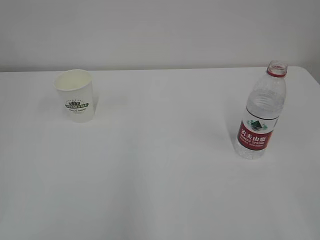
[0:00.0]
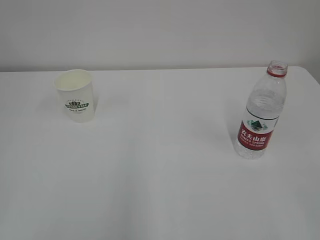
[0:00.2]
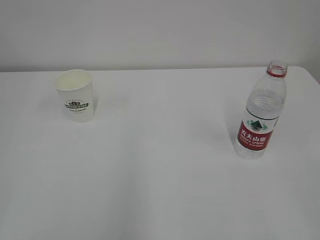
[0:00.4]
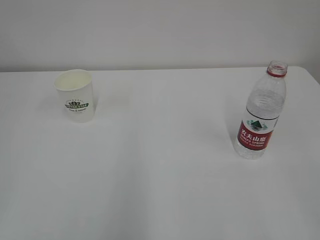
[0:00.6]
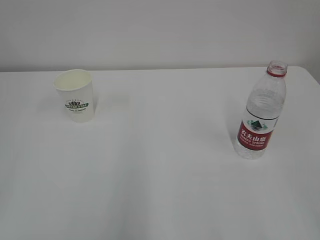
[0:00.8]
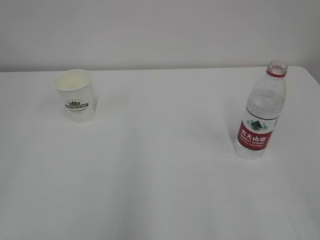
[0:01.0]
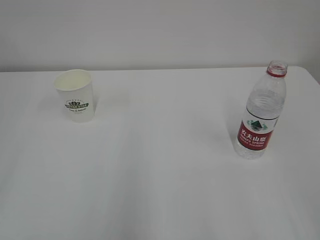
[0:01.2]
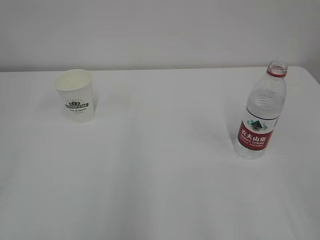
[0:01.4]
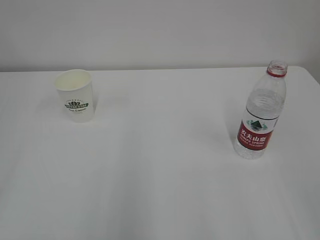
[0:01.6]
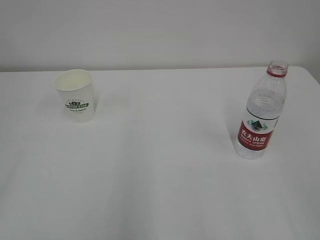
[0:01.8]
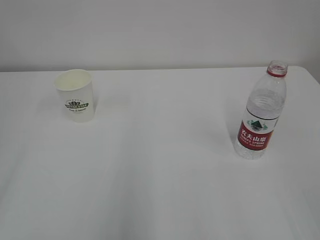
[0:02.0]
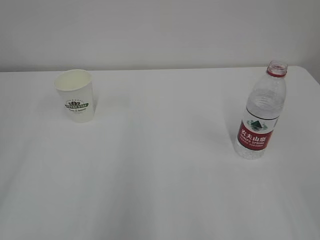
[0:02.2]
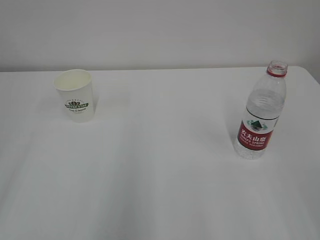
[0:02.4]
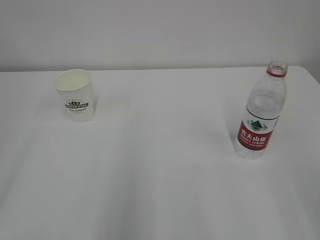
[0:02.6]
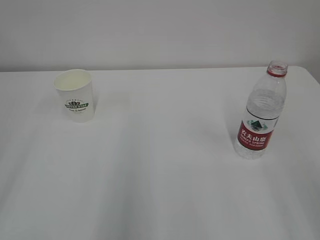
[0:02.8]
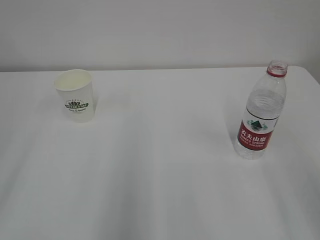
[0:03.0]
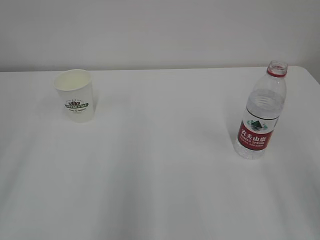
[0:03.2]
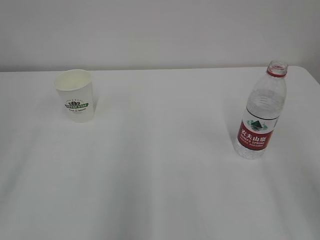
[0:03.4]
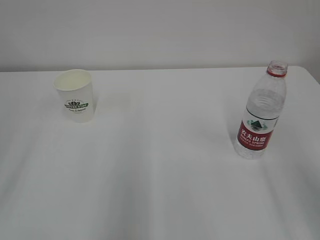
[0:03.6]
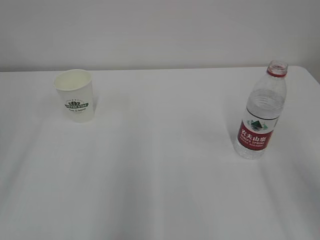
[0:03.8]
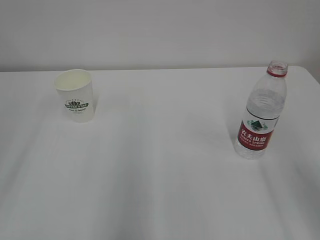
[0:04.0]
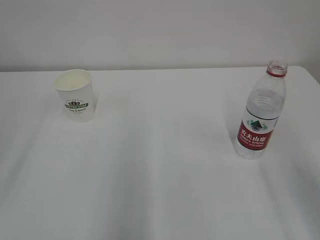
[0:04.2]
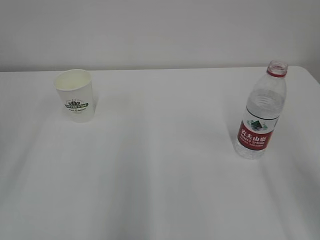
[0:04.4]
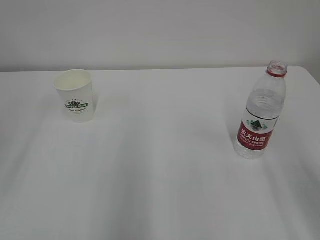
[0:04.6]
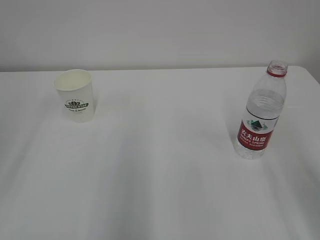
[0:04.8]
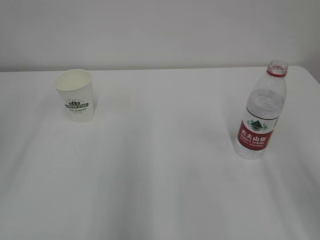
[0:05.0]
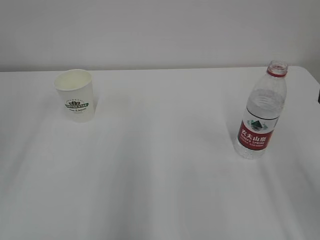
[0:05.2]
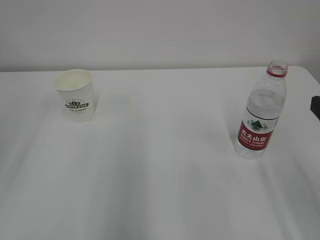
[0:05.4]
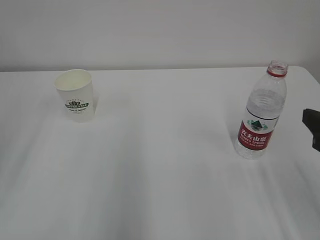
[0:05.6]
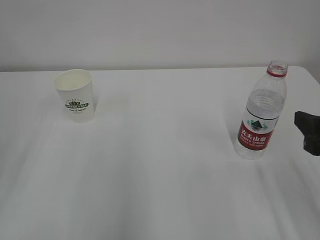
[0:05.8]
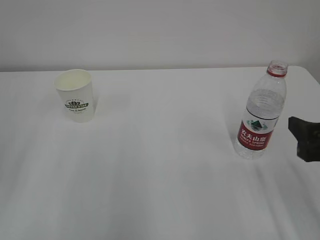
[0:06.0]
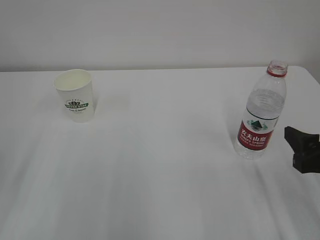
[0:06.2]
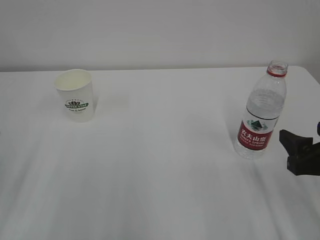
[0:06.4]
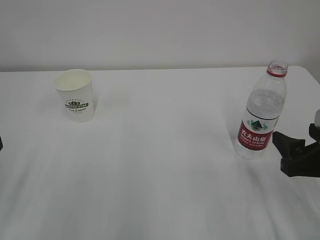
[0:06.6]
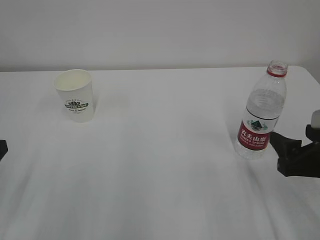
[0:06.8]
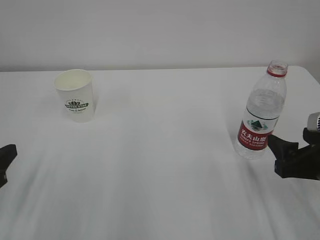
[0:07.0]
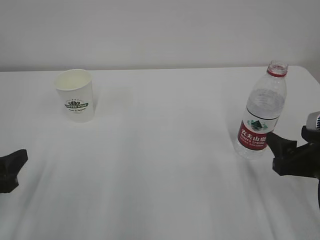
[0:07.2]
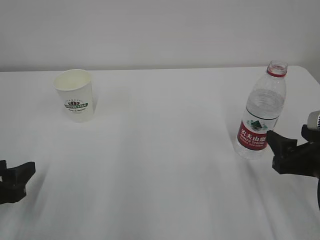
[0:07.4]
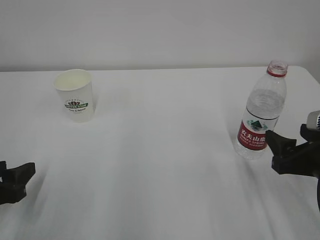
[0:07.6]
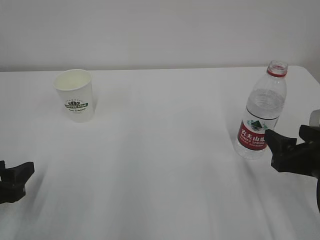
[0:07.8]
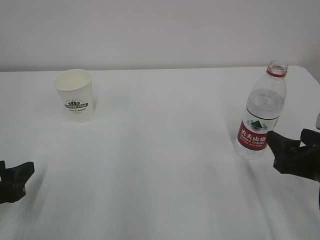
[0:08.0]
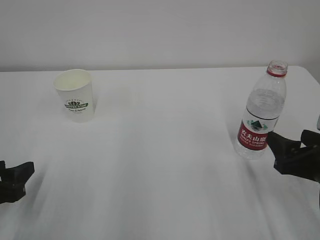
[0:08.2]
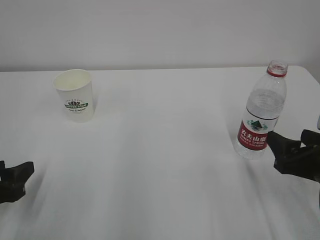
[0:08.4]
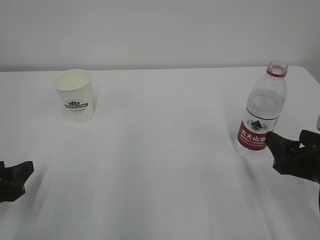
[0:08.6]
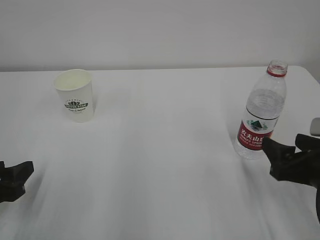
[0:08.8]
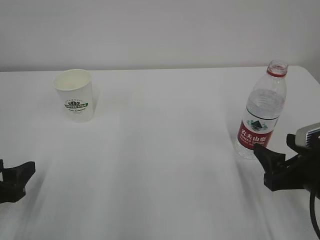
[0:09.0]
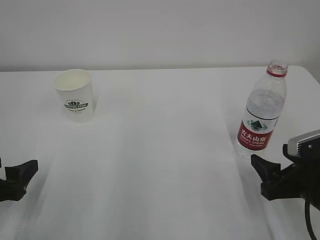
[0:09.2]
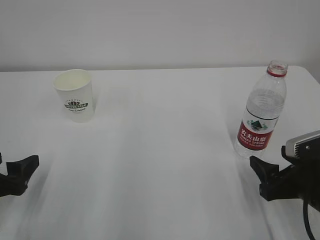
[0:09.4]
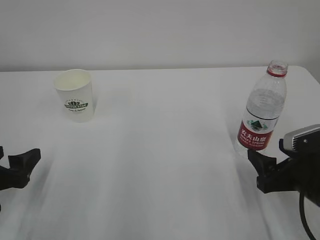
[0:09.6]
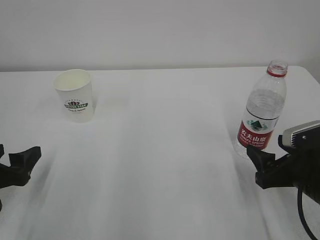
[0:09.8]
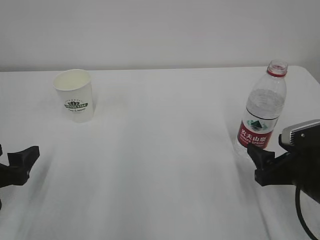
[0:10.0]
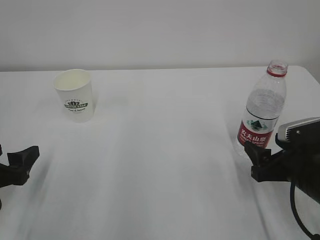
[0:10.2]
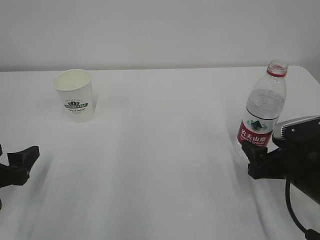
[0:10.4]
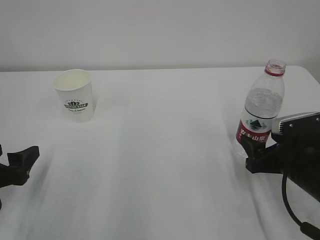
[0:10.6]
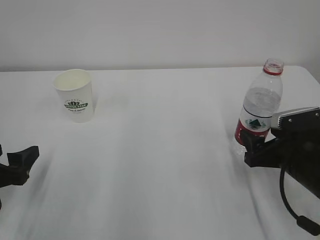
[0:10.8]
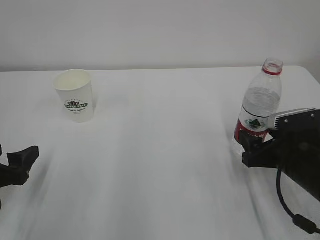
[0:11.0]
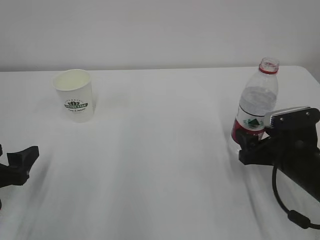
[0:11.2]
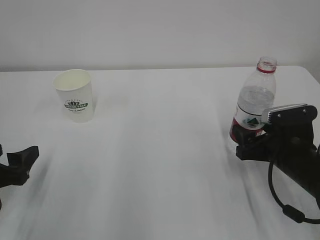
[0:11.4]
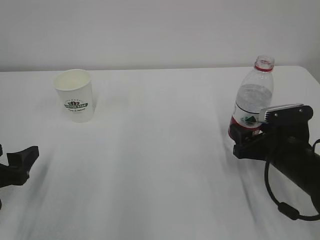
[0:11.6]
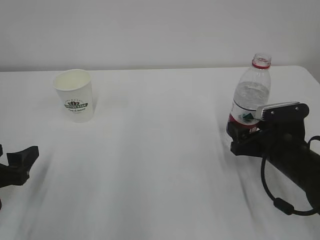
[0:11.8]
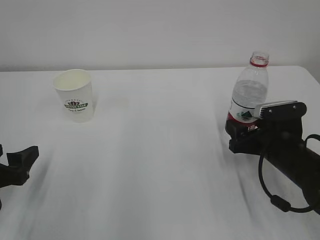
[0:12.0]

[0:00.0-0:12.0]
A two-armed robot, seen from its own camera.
0:04.4 to 0:06.0: The right gripper moves downward, approximately 10 cm.
0:06.0 to 0:07.6: The right gripper shifts about 5 cm downward; the left gripper moves downward, approximately 10 cm.
0:07.6 to 0:09.0: The grippers move only a little.
0:09.0 to 0:10.4: The left gripper opens up.
0:10.4 to 0:12.0: The right gripper heads forward, covering roughly 5 cm.

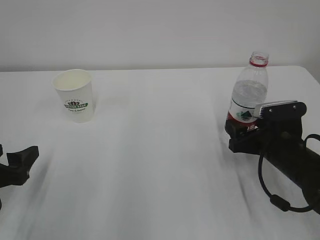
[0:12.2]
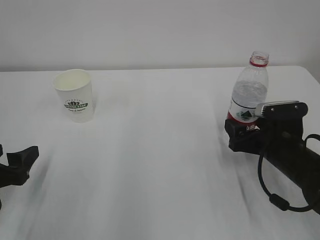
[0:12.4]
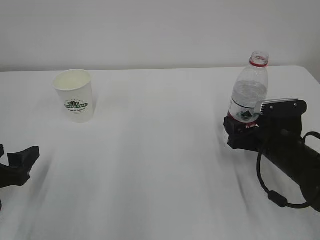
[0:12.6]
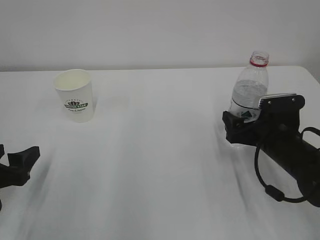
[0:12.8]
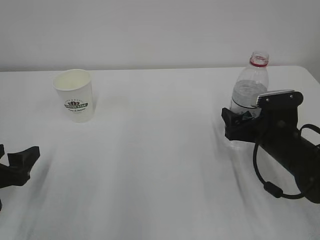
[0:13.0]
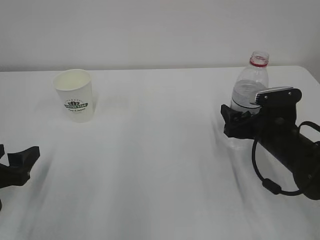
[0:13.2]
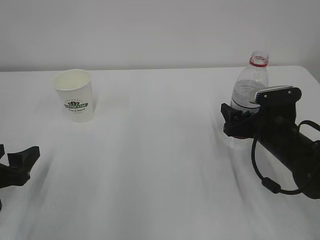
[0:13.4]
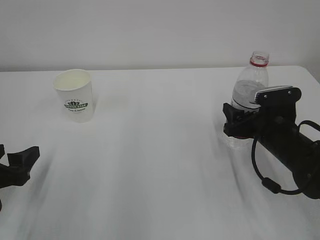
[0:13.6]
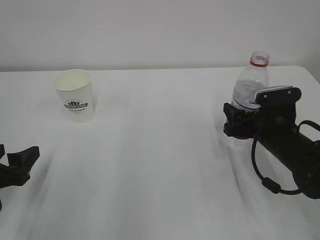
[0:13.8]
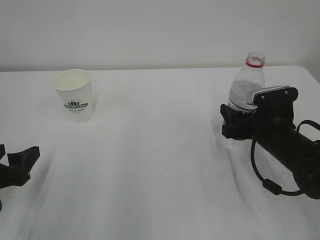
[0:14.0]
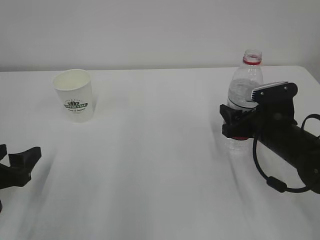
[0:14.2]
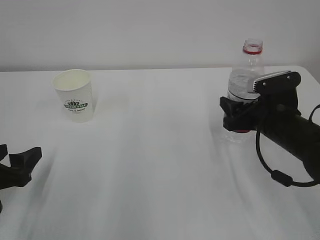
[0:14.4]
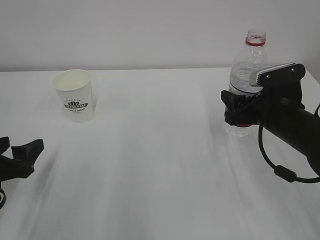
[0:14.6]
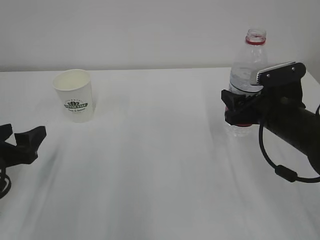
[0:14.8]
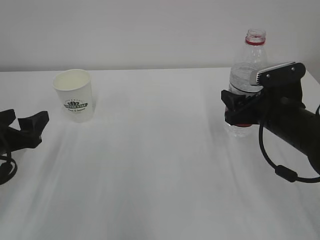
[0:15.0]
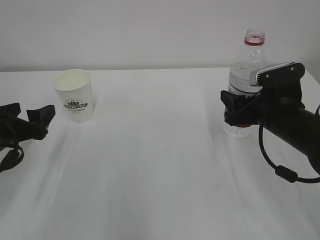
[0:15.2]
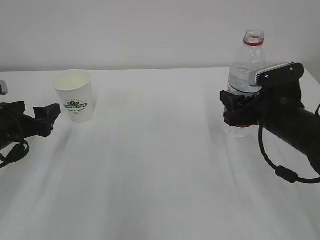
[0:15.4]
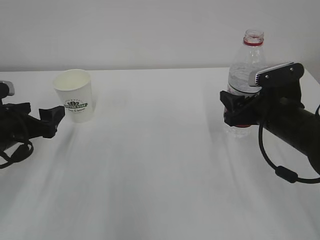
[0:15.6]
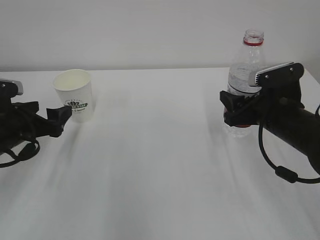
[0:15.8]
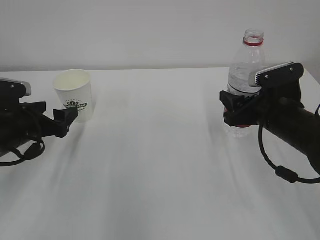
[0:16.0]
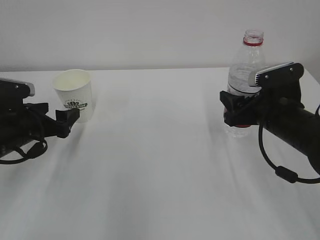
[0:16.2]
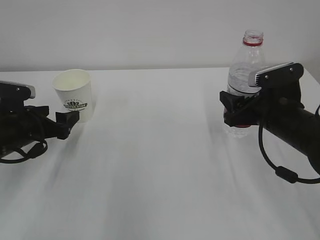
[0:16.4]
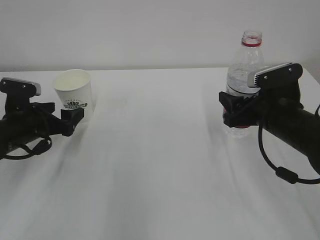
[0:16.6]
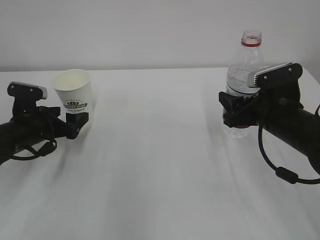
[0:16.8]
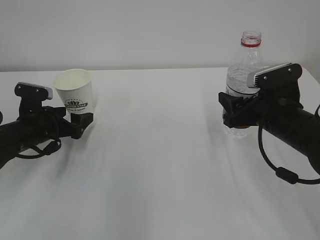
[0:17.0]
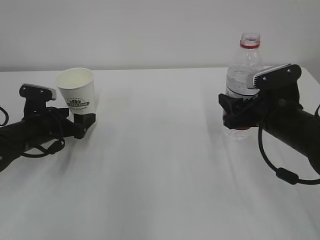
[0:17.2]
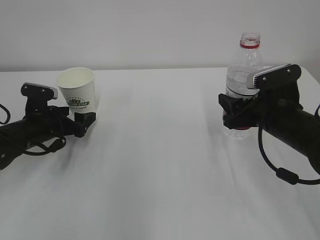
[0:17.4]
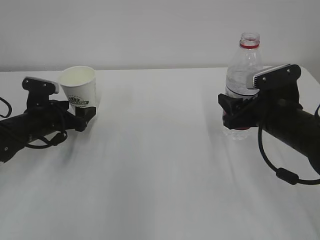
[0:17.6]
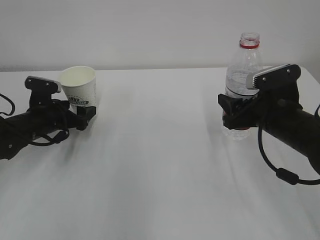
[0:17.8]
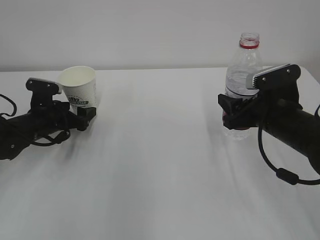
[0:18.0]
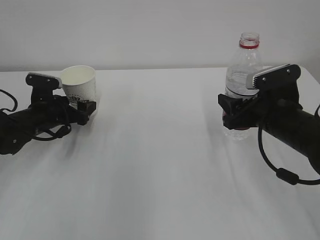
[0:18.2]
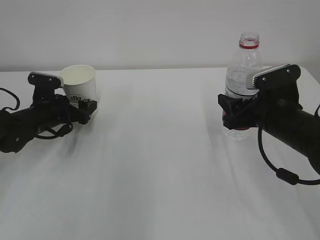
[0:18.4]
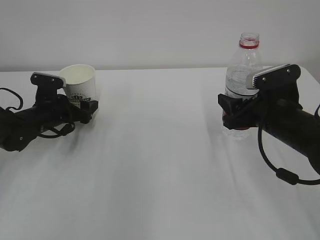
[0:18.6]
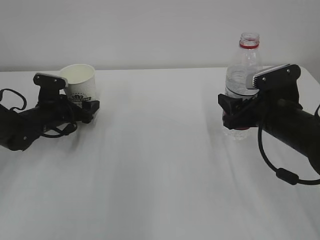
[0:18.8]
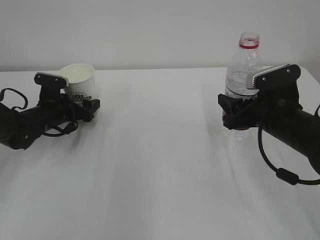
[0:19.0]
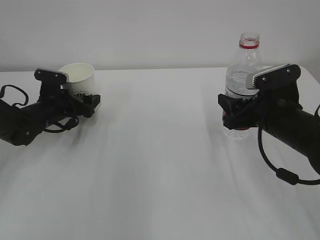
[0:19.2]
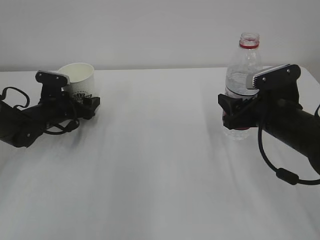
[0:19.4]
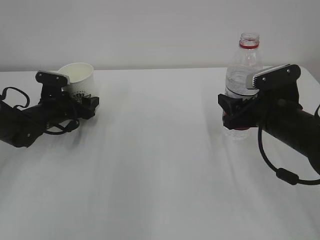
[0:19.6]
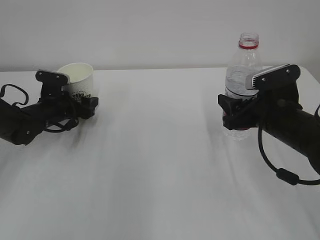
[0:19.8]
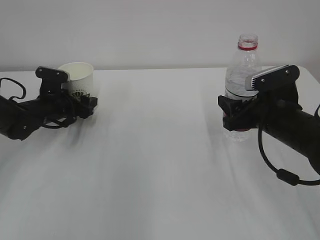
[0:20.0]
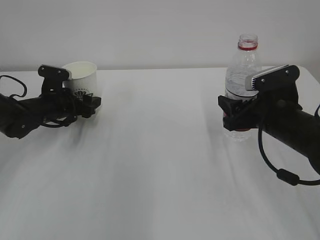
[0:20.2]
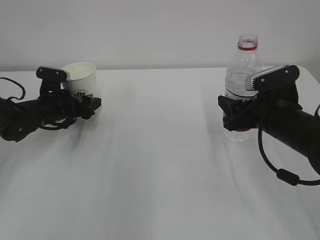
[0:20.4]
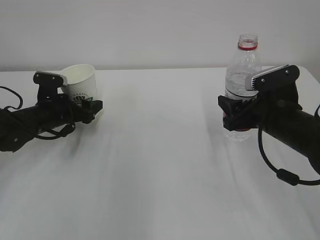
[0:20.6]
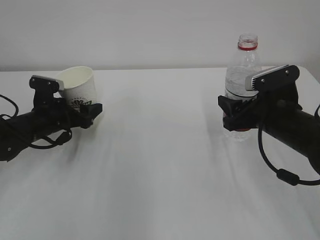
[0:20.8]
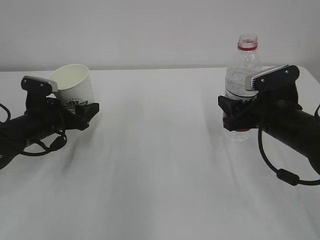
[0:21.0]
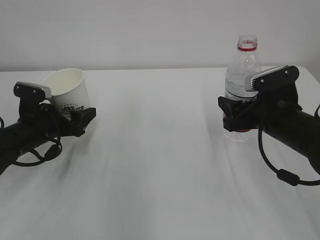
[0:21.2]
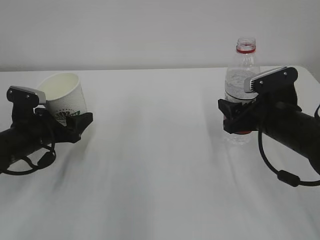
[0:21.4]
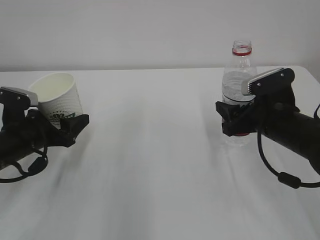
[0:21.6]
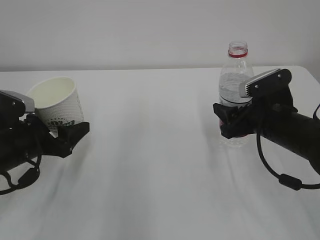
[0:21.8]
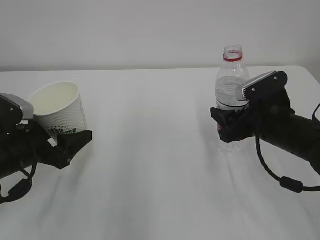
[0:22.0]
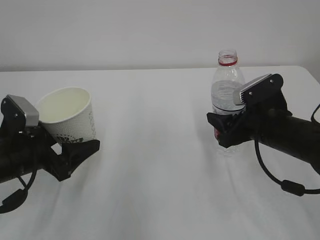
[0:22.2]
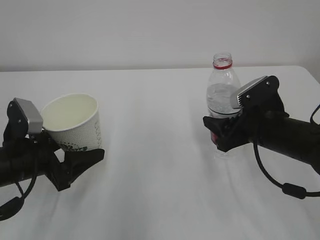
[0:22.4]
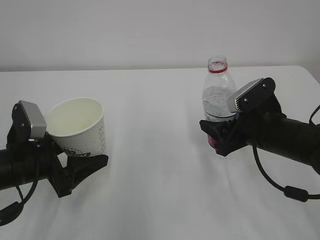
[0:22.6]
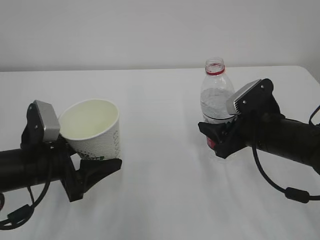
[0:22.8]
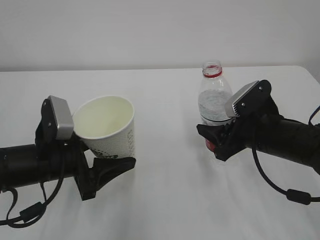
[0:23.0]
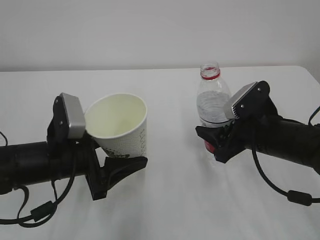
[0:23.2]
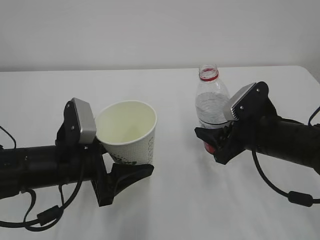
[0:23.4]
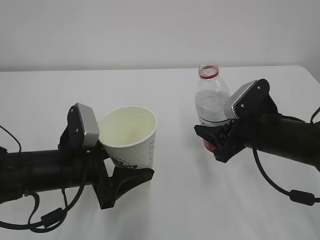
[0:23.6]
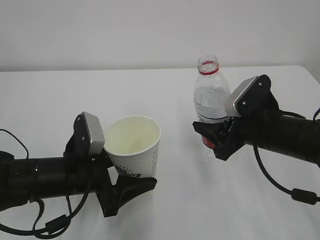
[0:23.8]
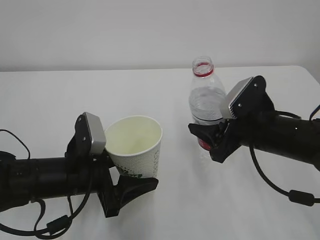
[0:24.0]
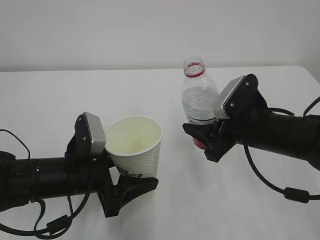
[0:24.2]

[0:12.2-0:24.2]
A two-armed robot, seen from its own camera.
0:12.2 to 0:13.8: The right gripper closes up.
0:13.8 to 0:15.2: The left gripper shifts about 5 cm forward. Meanwhile the right gripper is displaced upward by roughly 5 cm.
0:15.2 to 0:16.6: The left gripper is displaced forward by roughly 5 cm.
0:16.6 to 0:18.2: The left gripper moves forward, about 5 cm.
0:18.2 to 0:19.8: The left gripper closes its fingers.
0:19.8 to 0:21.2: The left gripper travels backward by approximately 10 cm.
0:21.2 to 0:22.6: The left gripper heads backward, covering approximately 10 cm.
0:22.6 to 0:24.2: The left gripper goes about 10 cm to the right.
